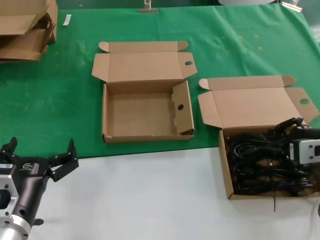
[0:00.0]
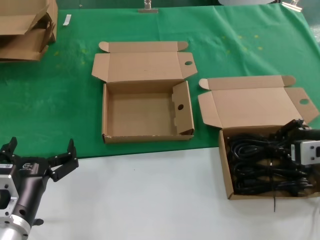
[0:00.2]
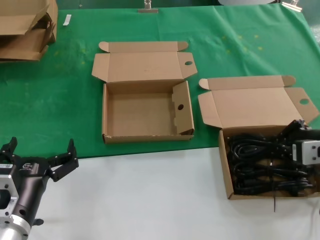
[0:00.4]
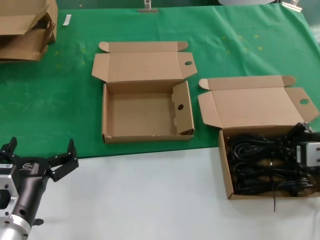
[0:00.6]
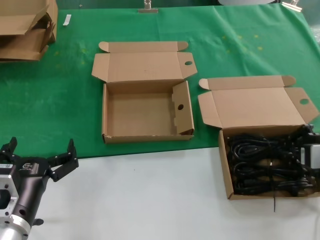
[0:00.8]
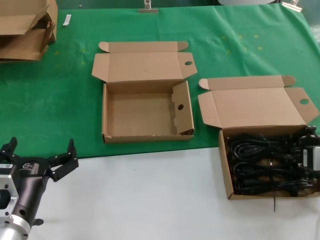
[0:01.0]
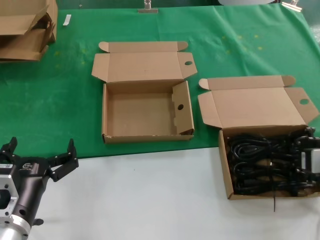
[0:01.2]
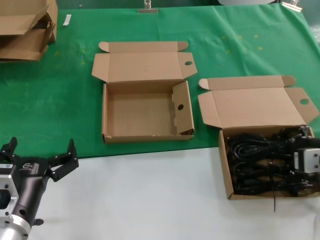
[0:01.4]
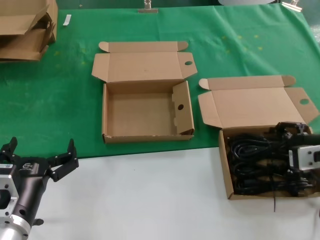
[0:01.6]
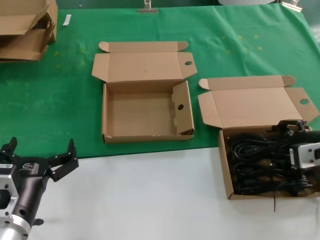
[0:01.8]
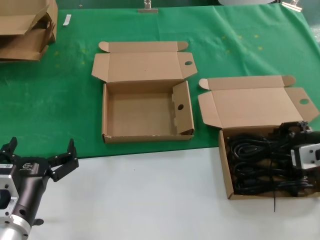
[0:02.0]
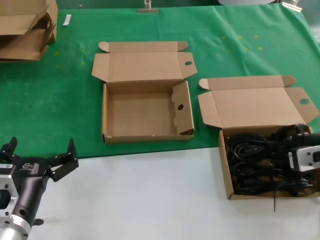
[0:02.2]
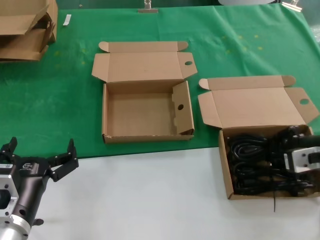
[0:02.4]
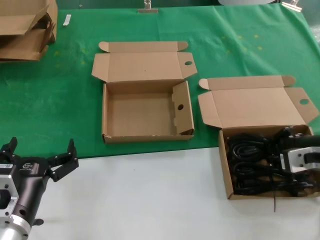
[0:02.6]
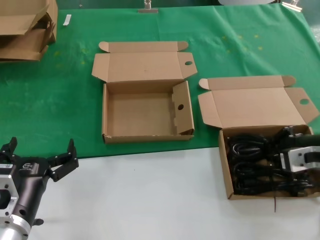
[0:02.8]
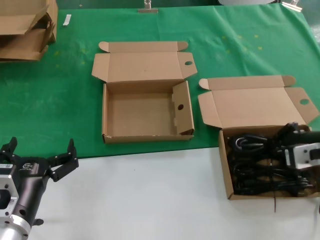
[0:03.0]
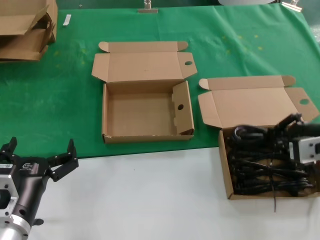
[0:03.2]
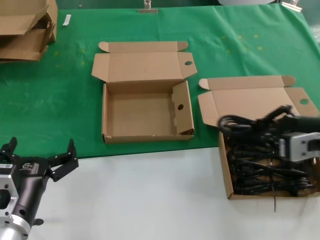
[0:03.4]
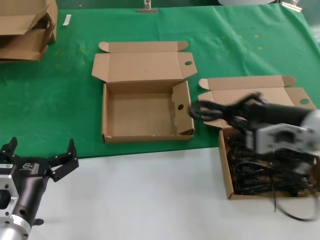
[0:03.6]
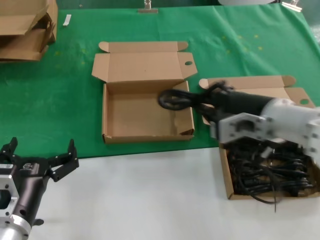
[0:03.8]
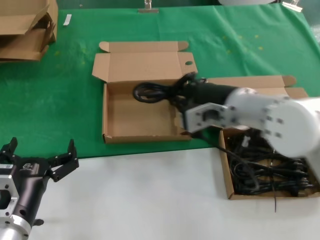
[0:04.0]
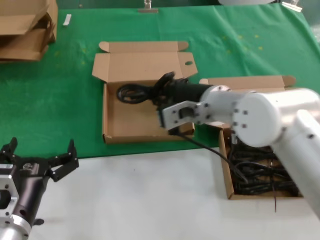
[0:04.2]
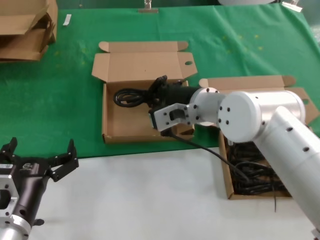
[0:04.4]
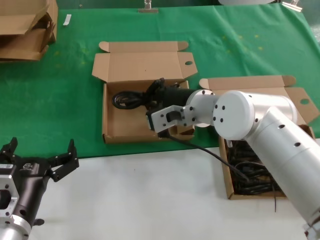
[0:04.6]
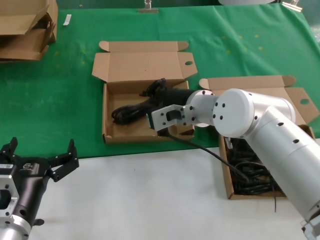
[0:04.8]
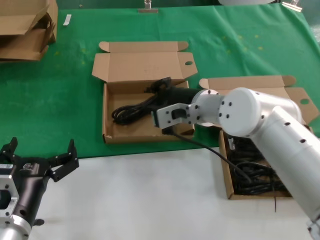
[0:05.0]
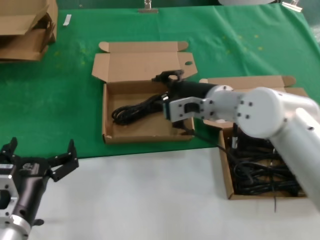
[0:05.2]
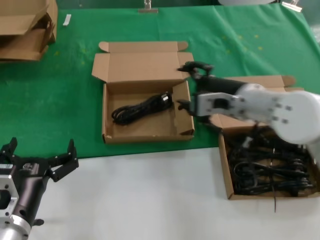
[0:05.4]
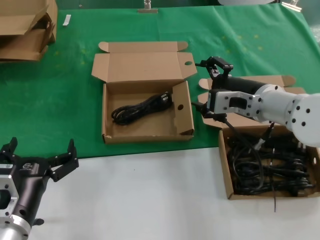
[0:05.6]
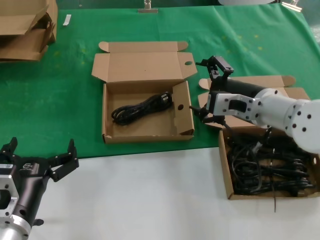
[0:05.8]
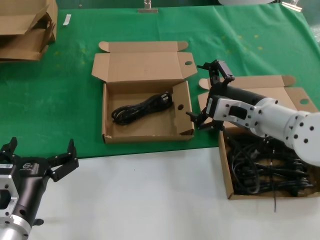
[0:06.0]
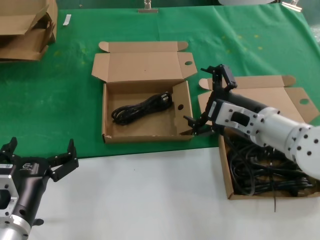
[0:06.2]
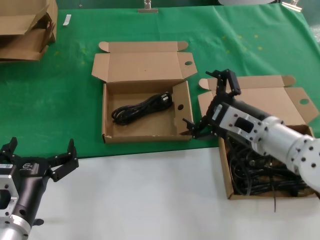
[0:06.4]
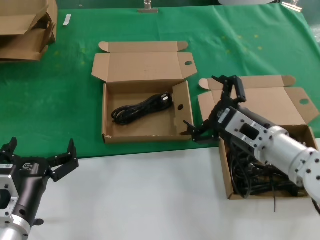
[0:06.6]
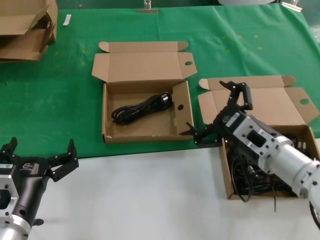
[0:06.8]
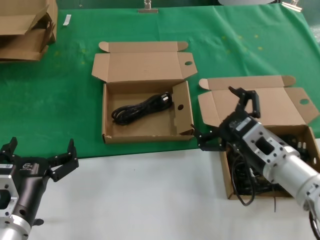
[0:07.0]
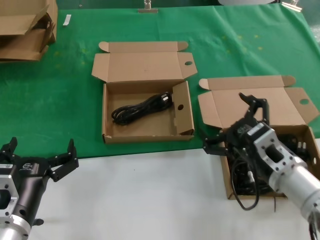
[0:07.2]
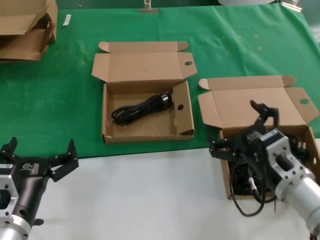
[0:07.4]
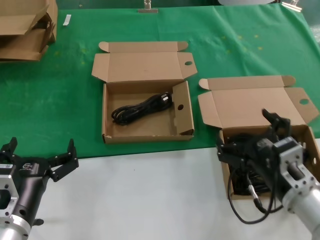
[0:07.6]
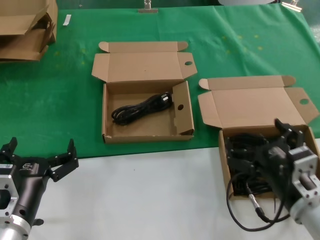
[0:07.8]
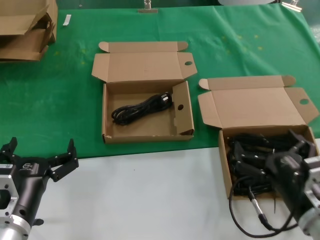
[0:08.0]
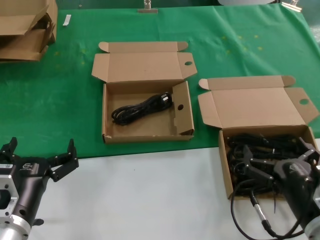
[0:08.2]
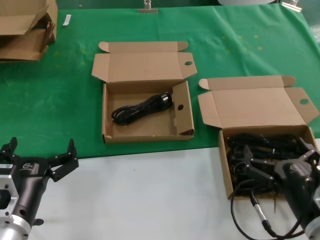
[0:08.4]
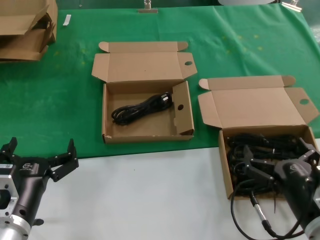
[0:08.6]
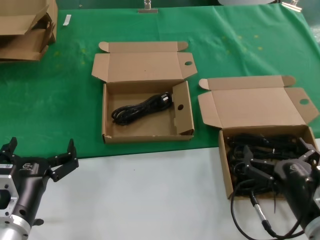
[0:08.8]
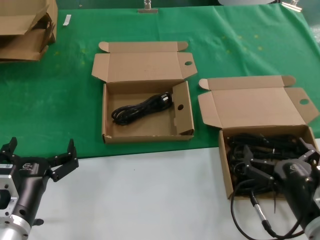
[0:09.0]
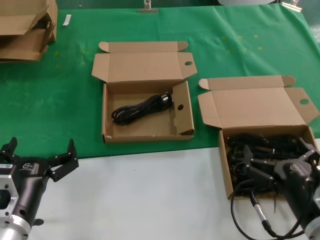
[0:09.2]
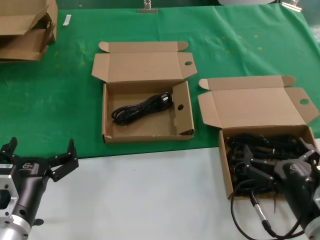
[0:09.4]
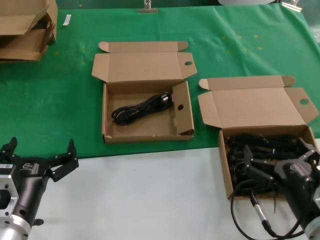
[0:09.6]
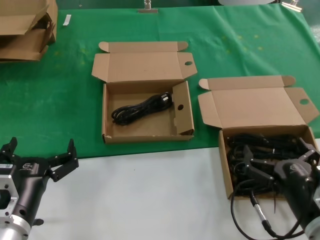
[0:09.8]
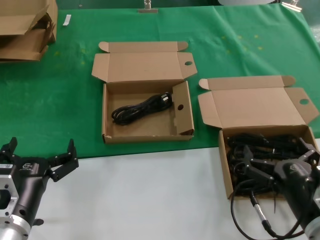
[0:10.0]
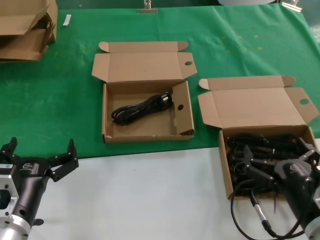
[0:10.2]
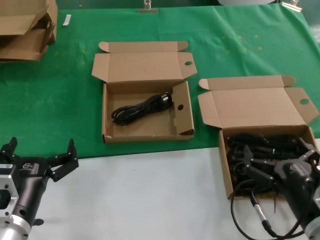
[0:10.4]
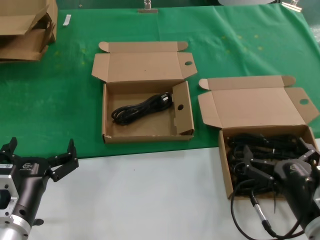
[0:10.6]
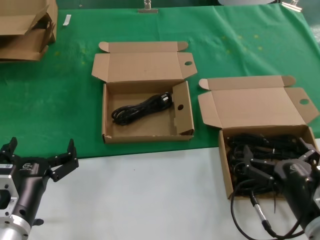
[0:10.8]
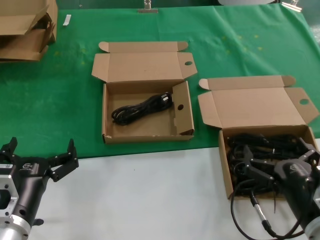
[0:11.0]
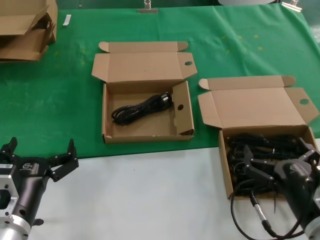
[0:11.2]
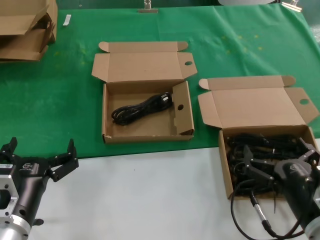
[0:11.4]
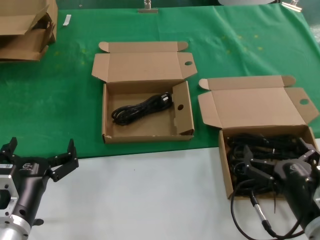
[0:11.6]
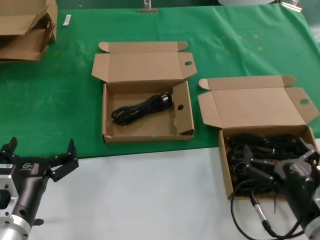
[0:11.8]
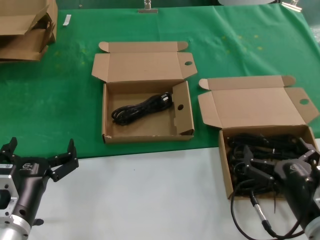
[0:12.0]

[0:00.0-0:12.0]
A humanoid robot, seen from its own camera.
Task of the whole recording: take the parts from the box containing them and put them into an empty box.
Step, 0:00.0 to 0:02.6: Grasp the data cable.
Step, 0:02.8 to 0:04.8: Place the data cable in the another box.
0:00.0 to 0:03.0: The hands make only small movements.
0:03.0 to 0:04.4: The right hand heads to the left, covering approximately 25 cm.
0:04.4 to 0:06.0: The right hand is displaced to the right by about 10 cm.
0:06.0 to 0:07.6: The right hand heads downward and backward, covering some 15 cm.
0:07.6 to 0:09.0: The right hand goes roughly 5 cm backward.
0:09.0 to 0:12.0: Neither hand changes place.

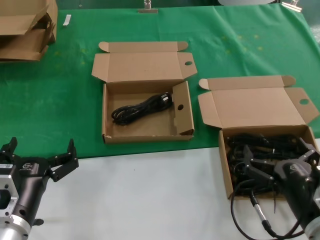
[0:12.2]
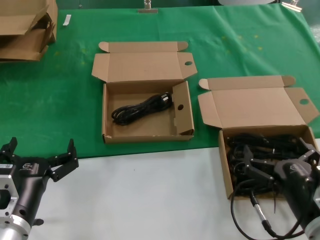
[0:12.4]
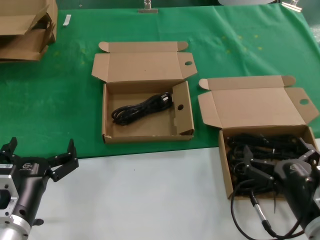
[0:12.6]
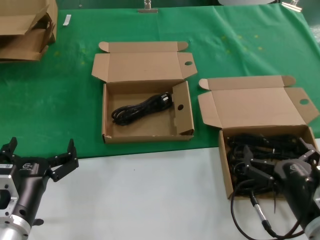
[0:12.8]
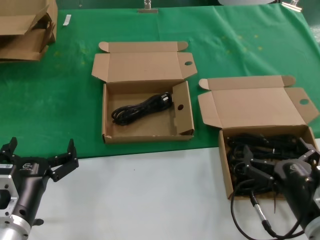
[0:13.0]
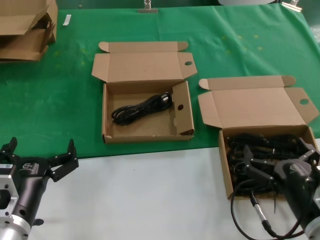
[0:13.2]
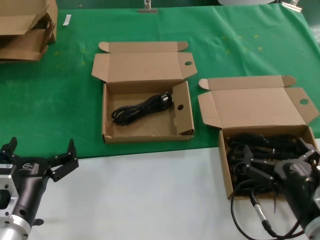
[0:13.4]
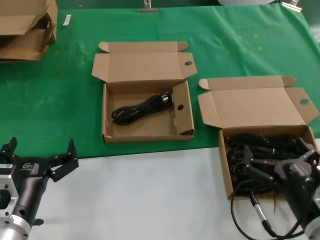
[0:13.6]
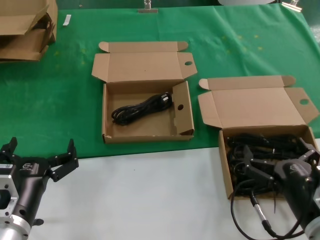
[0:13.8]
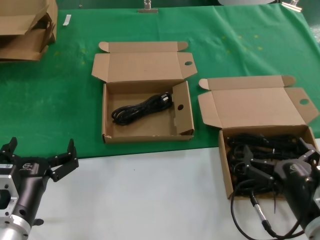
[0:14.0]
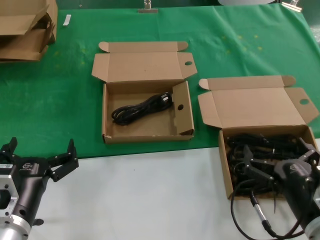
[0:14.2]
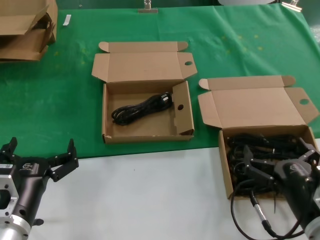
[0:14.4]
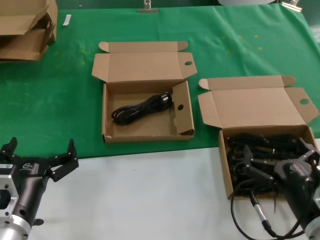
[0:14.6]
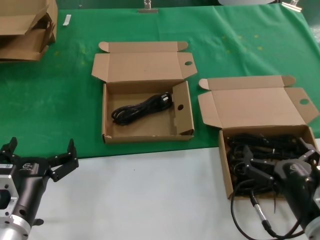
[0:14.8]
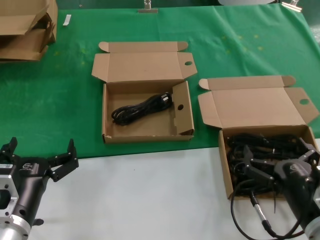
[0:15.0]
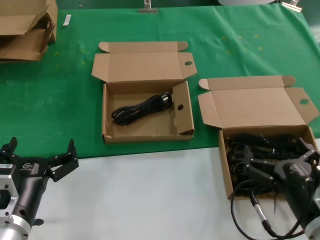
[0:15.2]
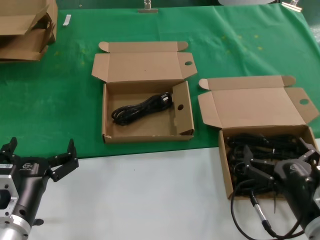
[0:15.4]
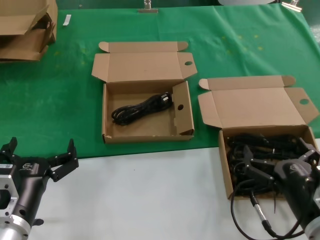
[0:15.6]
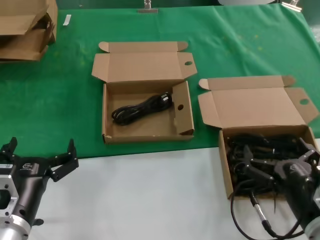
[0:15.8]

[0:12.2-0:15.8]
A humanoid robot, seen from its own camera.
Task of the whole recording: take the parts from the box containing them and put them into an empty box.
0:12.2 to 0:15.8: Both hands stay put.

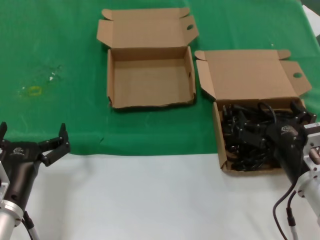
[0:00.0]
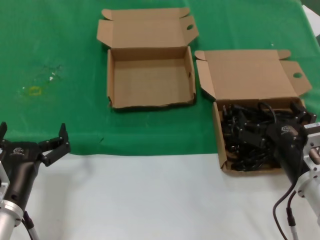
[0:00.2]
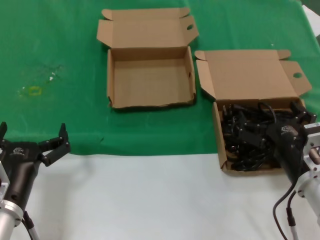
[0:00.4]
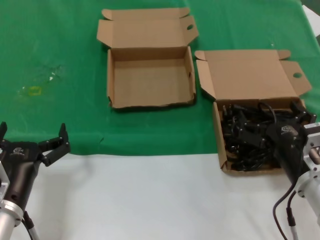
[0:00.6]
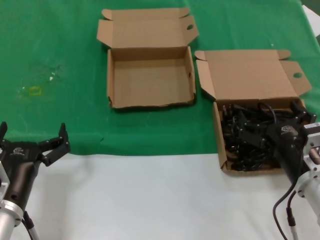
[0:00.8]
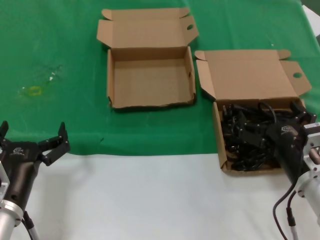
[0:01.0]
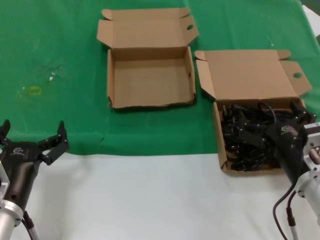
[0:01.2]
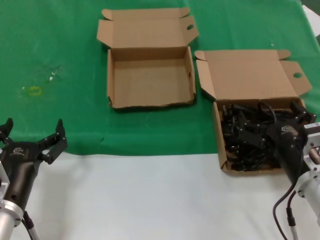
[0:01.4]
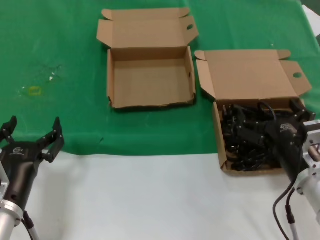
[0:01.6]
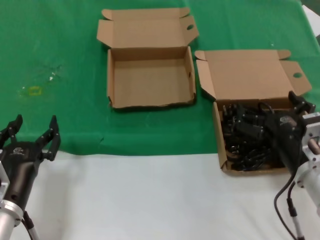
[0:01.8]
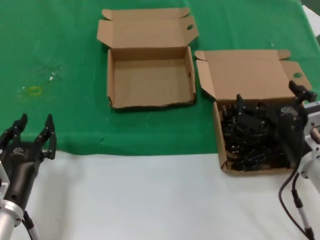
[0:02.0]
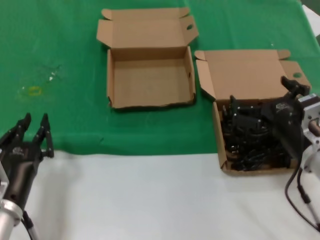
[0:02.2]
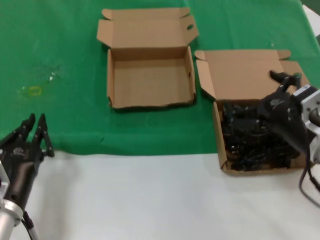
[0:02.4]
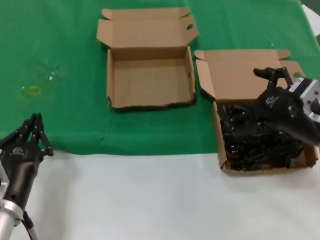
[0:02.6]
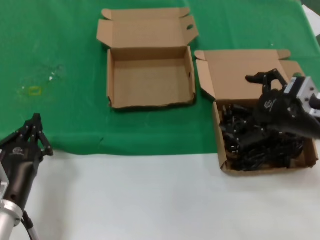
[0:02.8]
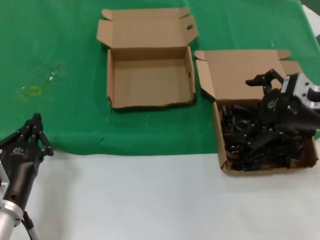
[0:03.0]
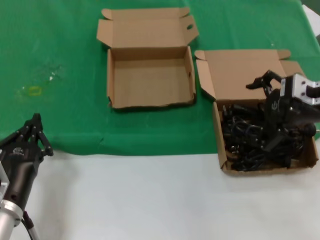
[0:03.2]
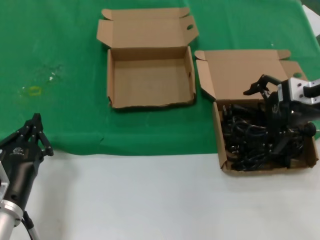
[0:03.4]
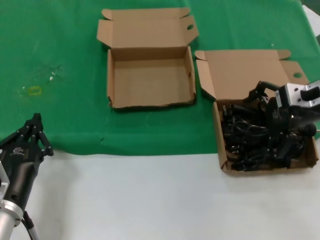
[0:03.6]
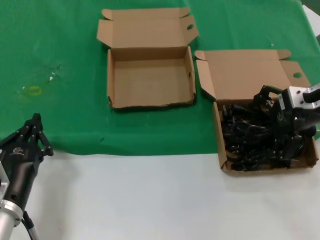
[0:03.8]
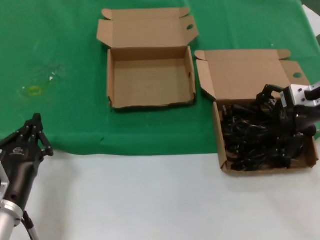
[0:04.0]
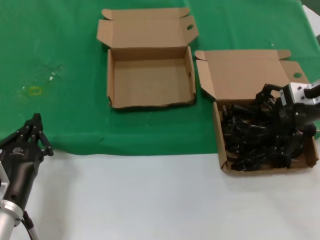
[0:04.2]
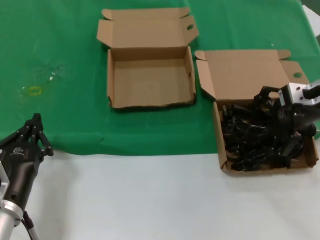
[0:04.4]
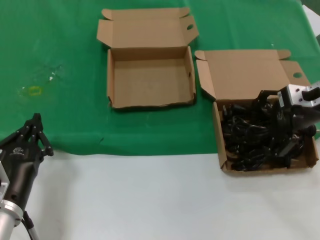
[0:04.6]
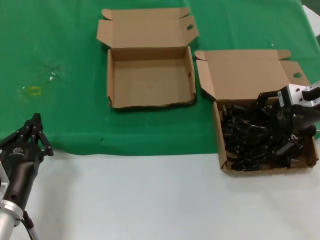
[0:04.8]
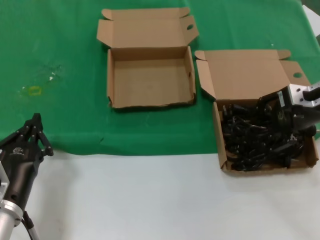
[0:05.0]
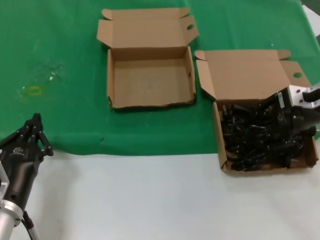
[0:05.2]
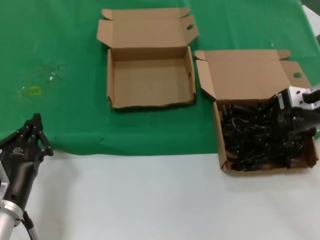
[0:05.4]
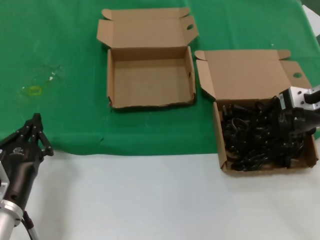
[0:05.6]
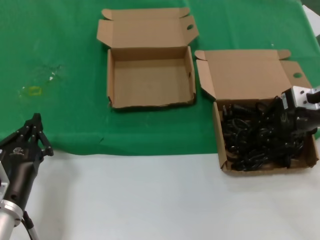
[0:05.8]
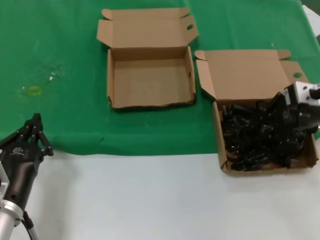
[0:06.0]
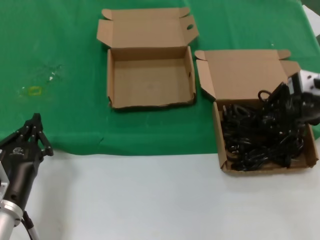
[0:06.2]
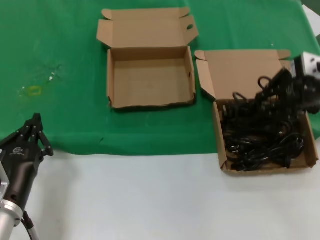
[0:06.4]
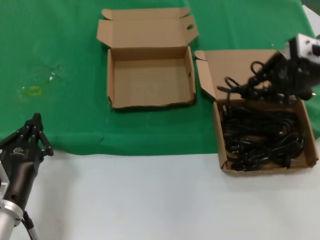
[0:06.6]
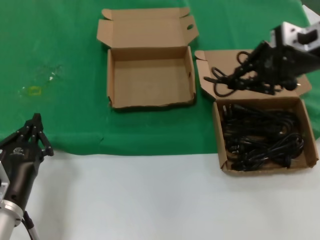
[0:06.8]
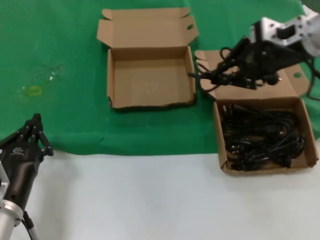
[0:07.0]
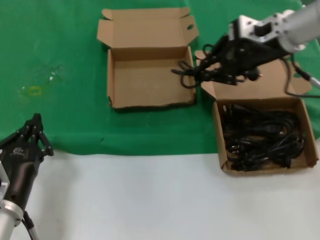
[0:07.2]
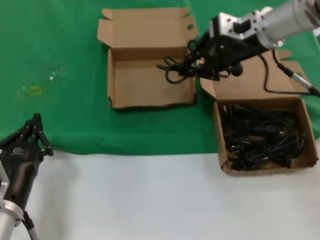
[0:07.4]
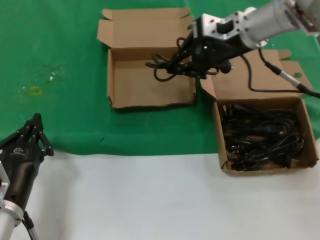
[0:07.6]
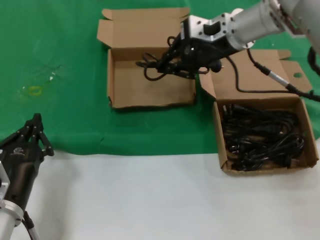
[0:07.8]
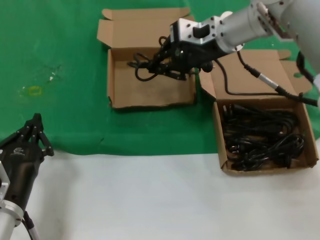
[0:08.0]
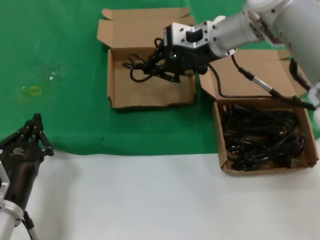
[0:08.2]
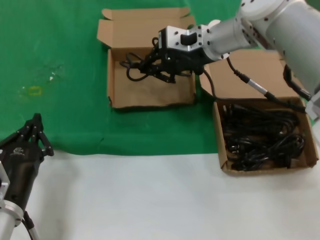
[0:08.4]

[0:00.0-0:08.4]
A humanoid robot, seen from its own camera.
Task of the whole recording: take the parts from the box containing them and put them into an empty box.
Step, 0:00.0 to 0:05.8: Grasp the data cable.
0:00.0 to 0:01.4: The two hands keep their place.
0:01.4 to 0:02.8: The right hand heads upward, covering roughly 15 cm.
0:02.8 to 0:04.2: The right hand heads forward, covering about 10 cm.
0:04.2 to 0:05.6: The two hands keep their place.
0:05.6 to 0:07.0: The right hand is displaced upward and to the left by about 10 cm.
0:07.0 to 0:08.4: The right hand travels to the left and forward by approximately 15 cm.
